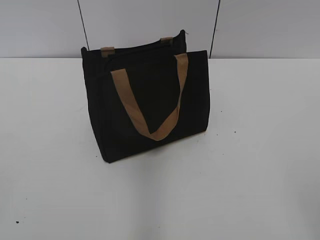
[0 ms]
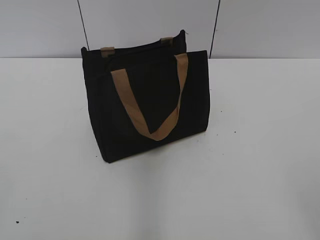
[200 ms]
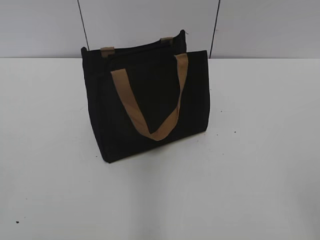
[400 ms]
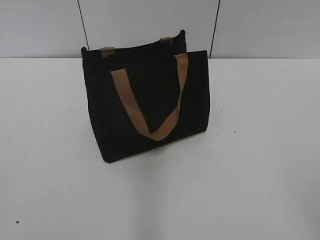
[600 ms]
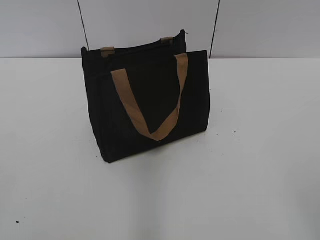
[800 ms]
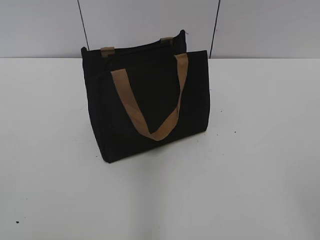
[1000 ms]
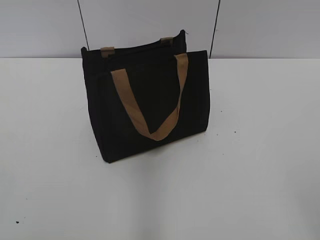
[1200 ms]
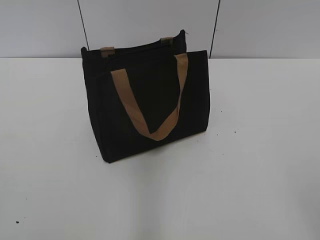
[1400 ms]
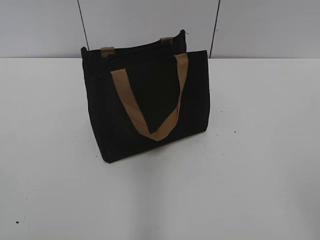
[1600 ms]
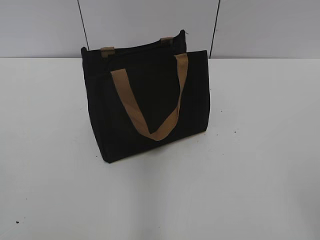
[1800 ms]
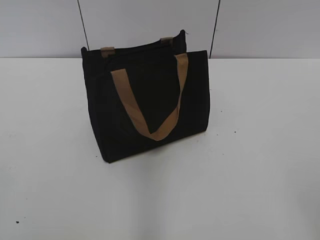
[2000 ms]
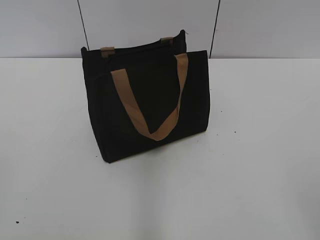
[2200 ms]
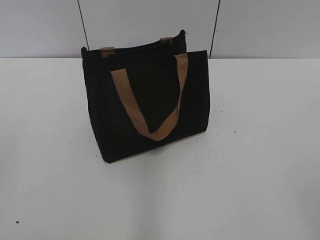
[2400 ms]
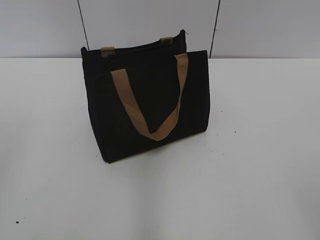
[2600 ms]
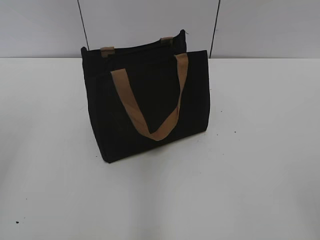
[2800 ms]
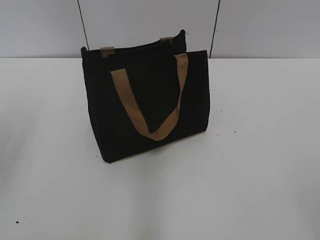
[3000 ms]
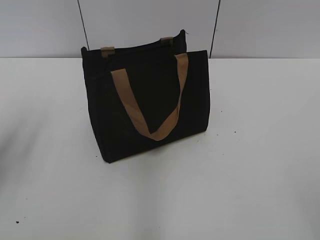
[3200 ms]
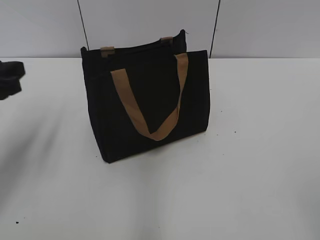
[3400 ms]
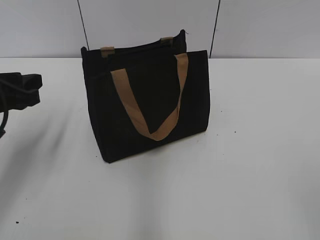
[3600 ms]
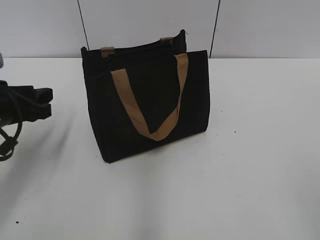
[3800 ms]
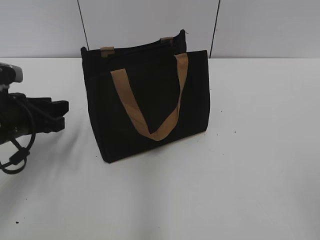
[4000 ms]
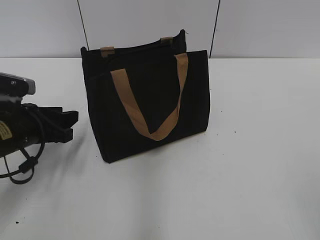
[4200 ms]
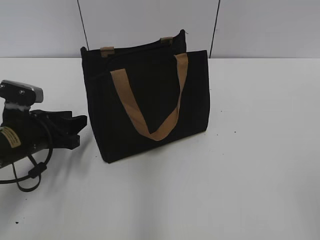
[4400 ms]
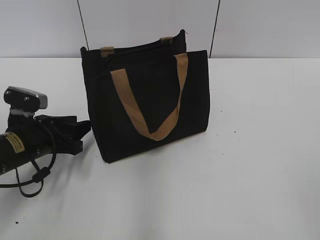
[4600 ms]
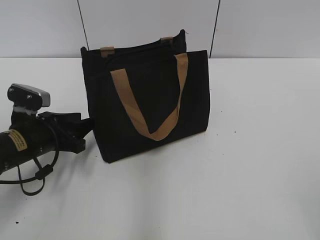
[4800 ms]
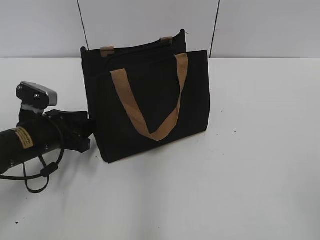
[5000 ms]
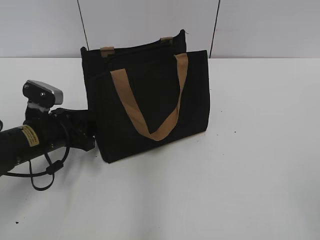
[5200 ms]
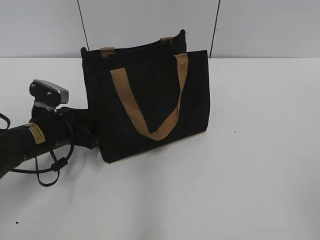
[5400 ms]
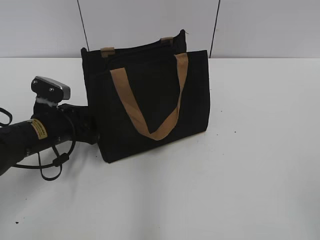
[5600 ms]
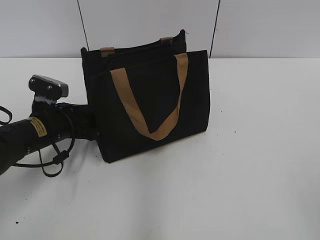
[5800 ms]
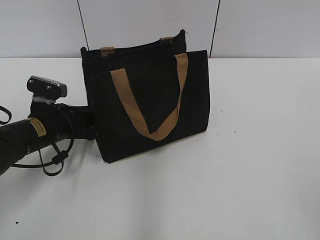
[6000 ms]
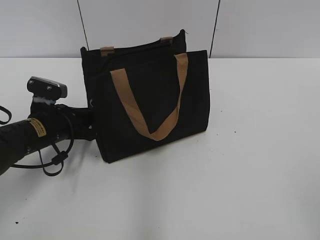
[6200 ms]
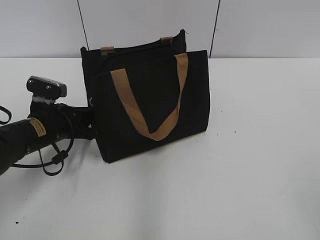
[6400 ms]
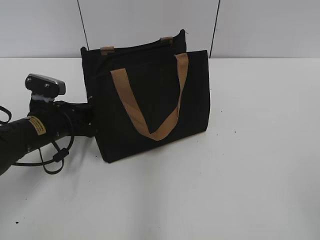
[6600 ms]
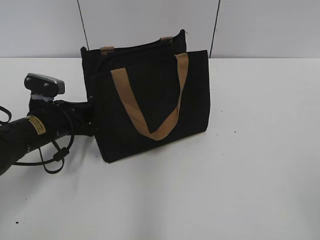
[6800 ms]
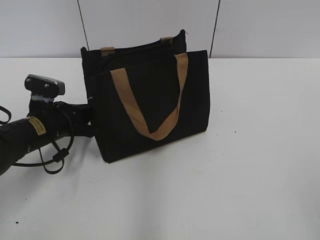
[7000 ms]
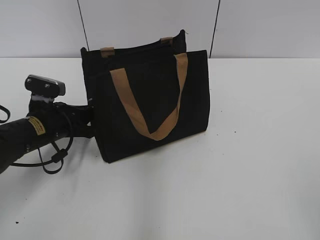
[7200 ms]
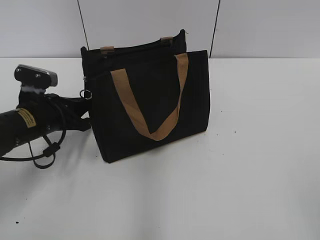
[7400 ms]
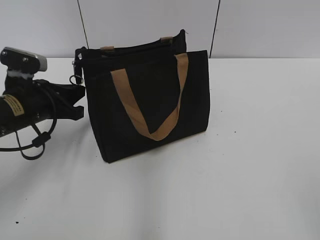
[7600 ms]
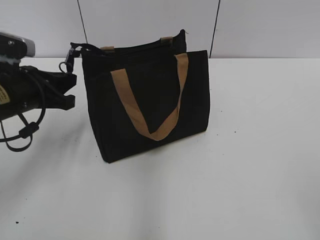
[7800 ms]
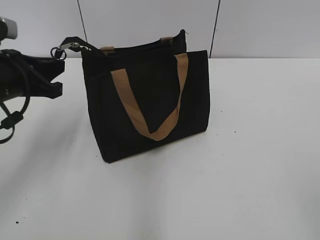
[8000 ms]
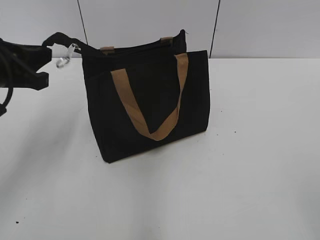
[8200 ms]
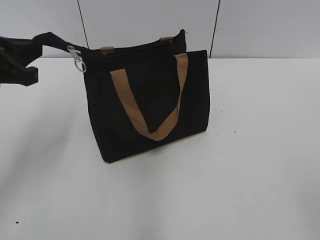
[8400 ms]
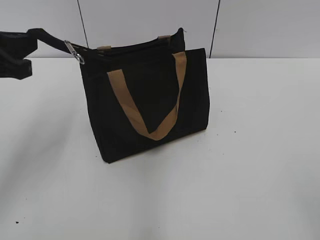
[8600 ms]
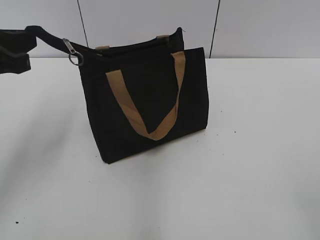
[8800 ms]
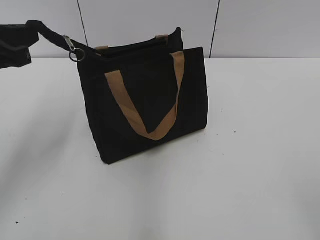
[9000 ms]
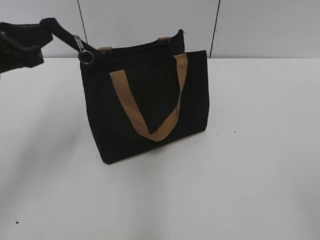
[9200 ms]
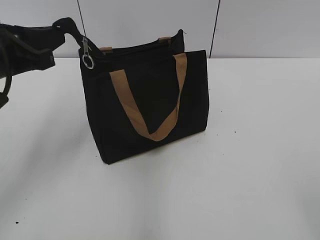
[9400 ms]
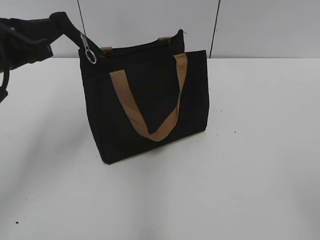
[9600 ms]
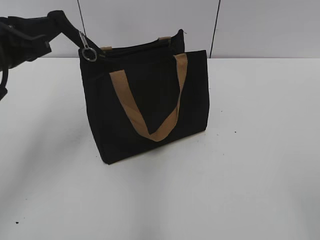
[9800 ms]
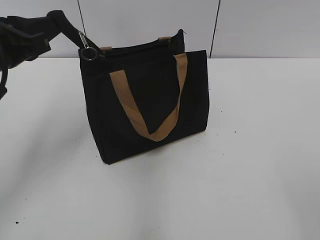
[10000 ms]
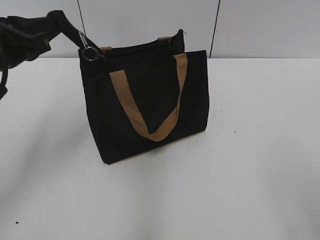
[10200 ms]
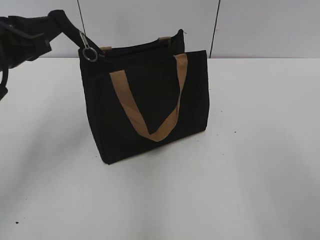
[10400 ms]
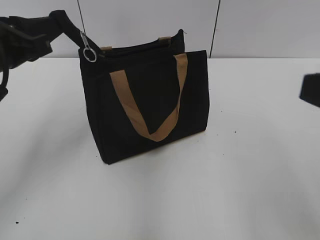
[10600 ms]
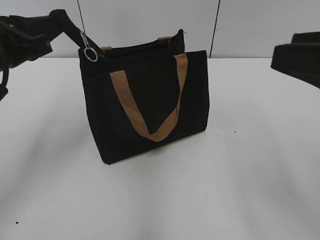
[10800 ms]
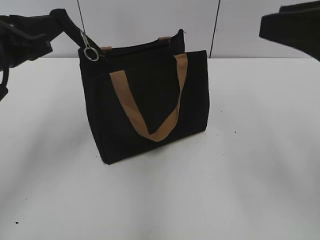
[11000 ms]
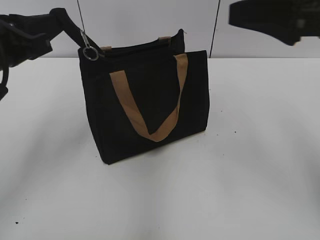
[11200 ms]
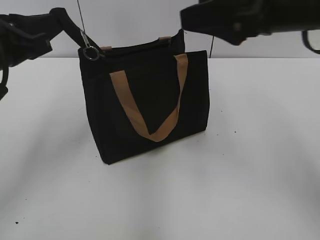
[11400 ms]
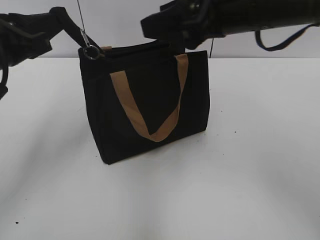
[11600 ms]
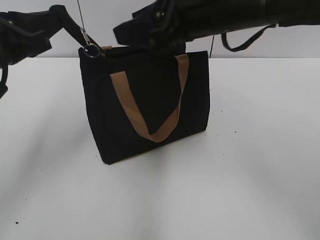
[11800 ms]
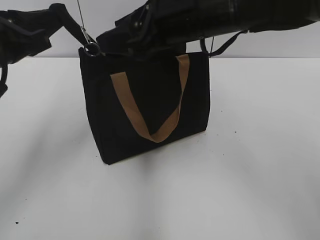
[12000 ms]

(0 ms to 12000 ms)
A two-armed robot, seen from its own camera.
3000 ms - 4400 ms: The left gripper goes approximately 25 cm downward and forward.
4400 ms - 6000 ms: The left gripper moves some 5 cm.
6000 ms - 7600 ms: The left gripper goes some 5 cm upward, and closes.
7600 ms - 9000 ms: The left gripper is displaced upward and backward by roughly 15 cm.
9000 ms - 10400 ms: The right gripper shifts about 5 cm forward.
10400 ms - 12000 ms: The right gripper shifts roughly 30 cm forward and to the left.

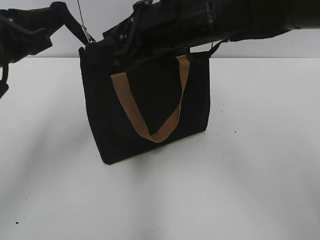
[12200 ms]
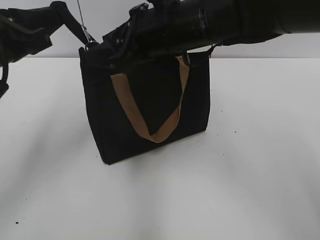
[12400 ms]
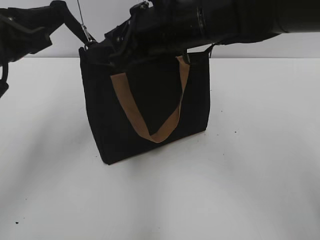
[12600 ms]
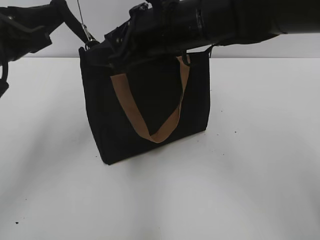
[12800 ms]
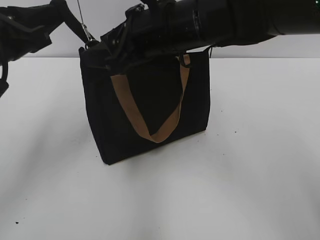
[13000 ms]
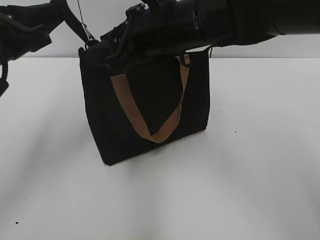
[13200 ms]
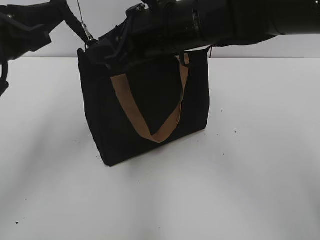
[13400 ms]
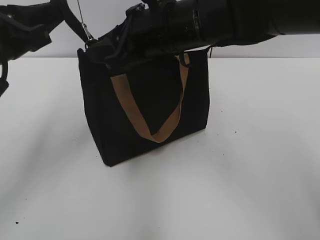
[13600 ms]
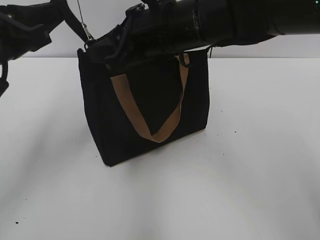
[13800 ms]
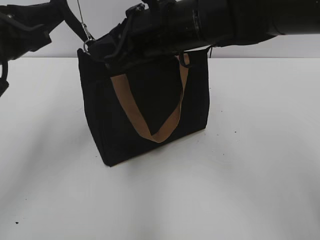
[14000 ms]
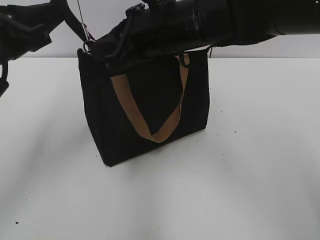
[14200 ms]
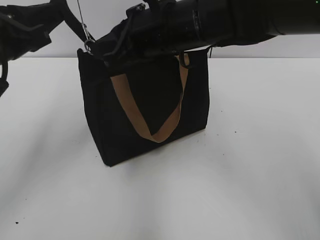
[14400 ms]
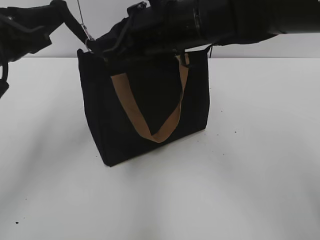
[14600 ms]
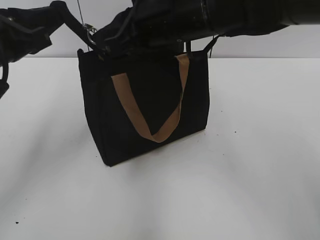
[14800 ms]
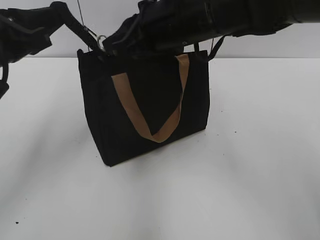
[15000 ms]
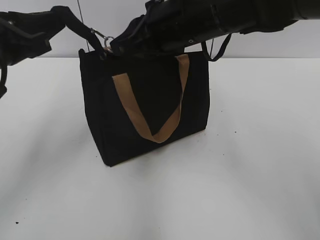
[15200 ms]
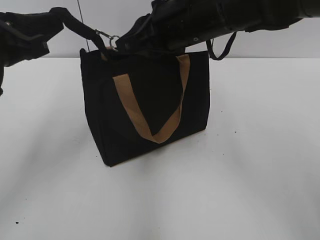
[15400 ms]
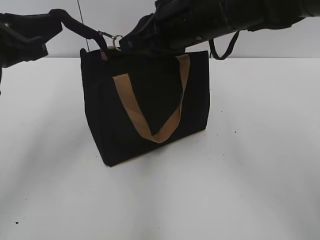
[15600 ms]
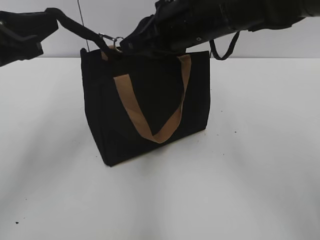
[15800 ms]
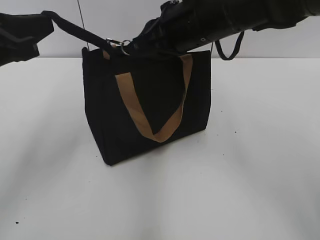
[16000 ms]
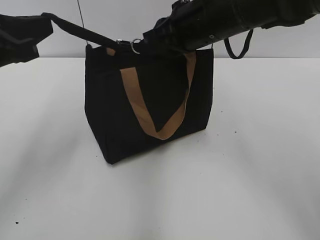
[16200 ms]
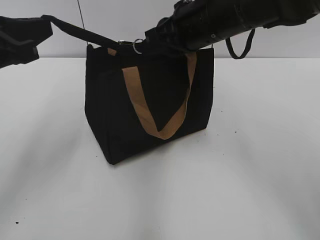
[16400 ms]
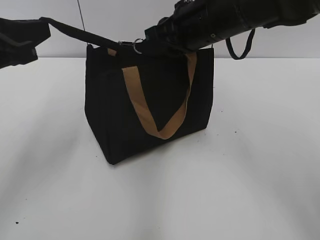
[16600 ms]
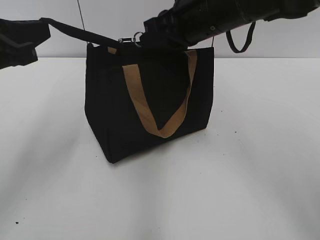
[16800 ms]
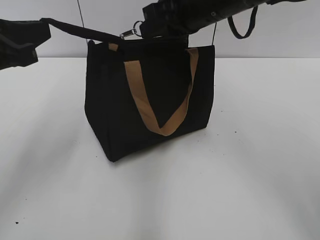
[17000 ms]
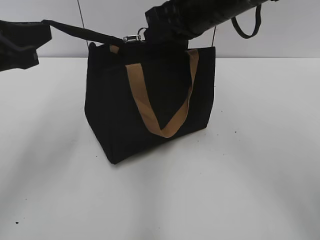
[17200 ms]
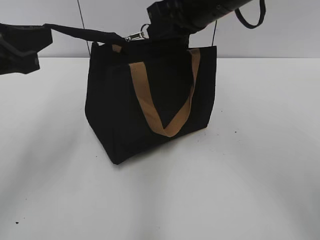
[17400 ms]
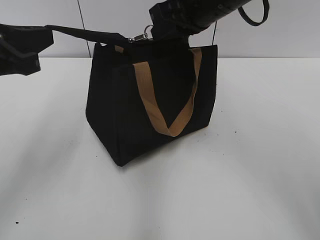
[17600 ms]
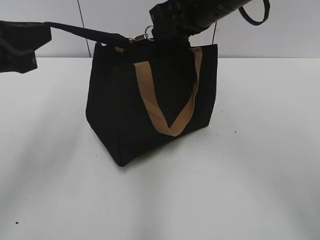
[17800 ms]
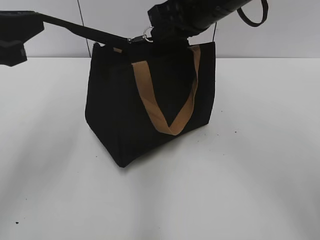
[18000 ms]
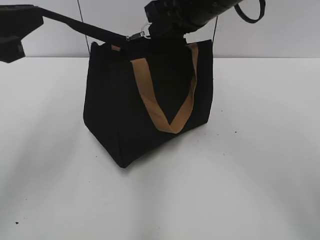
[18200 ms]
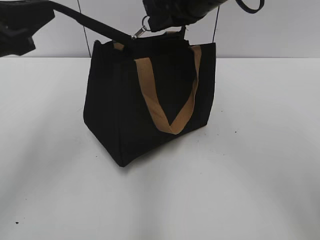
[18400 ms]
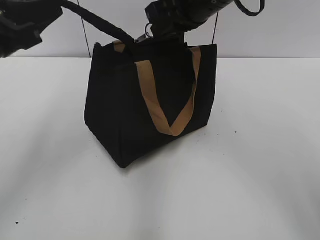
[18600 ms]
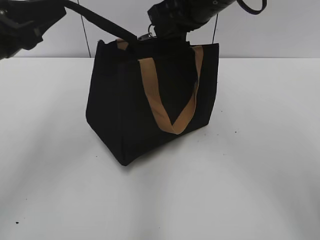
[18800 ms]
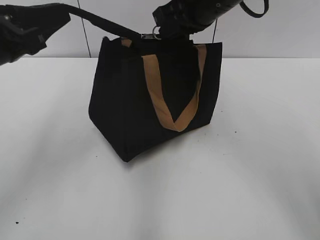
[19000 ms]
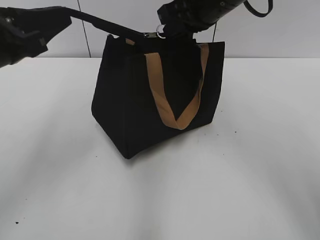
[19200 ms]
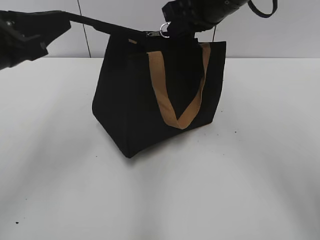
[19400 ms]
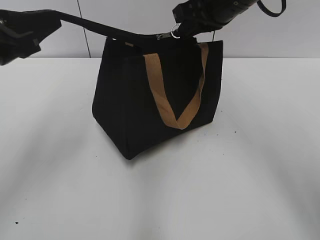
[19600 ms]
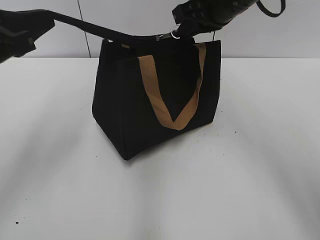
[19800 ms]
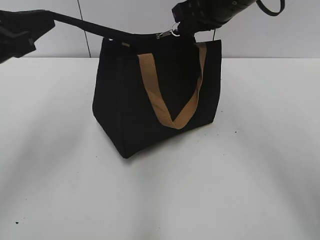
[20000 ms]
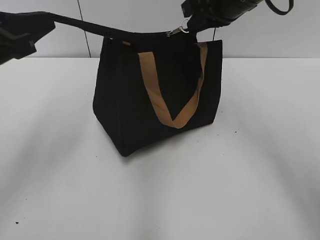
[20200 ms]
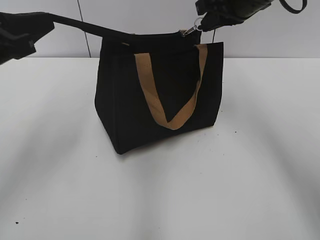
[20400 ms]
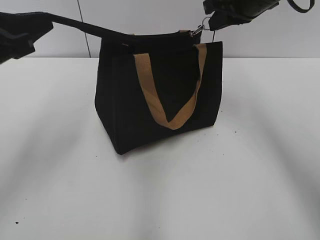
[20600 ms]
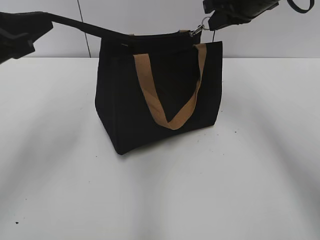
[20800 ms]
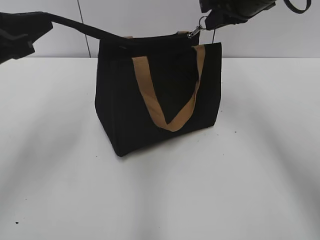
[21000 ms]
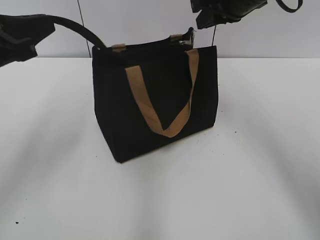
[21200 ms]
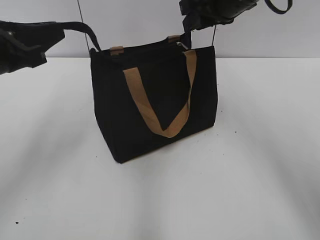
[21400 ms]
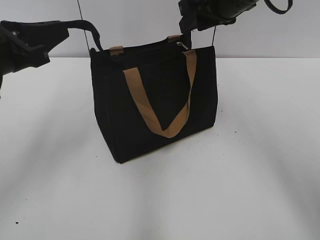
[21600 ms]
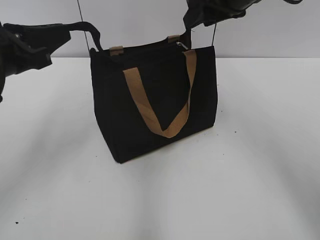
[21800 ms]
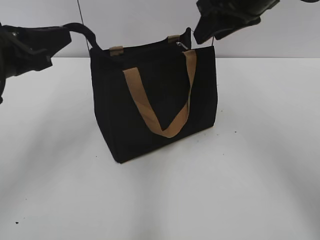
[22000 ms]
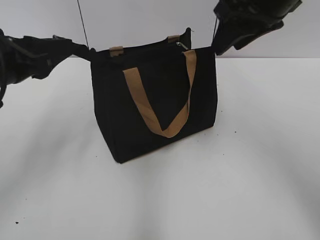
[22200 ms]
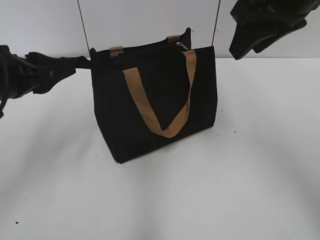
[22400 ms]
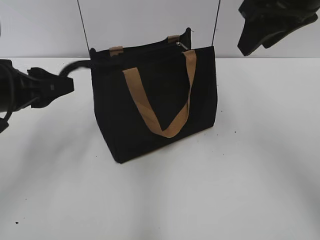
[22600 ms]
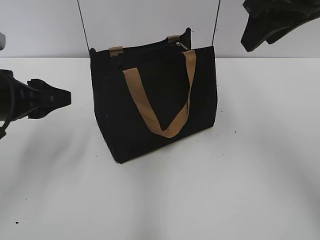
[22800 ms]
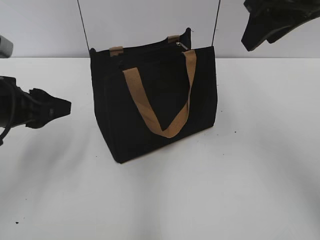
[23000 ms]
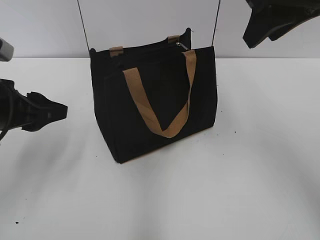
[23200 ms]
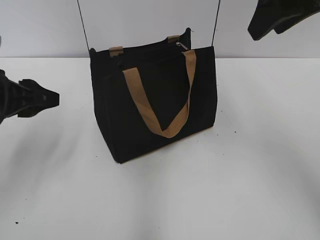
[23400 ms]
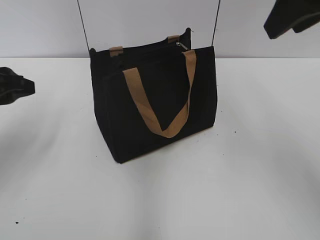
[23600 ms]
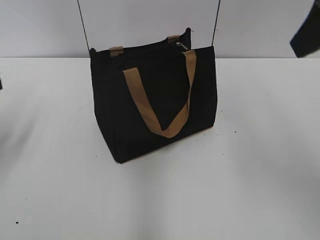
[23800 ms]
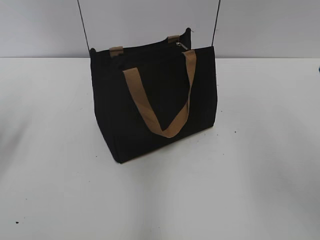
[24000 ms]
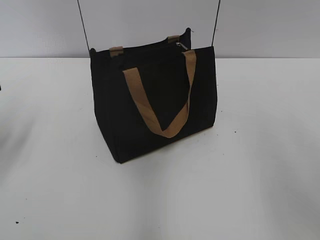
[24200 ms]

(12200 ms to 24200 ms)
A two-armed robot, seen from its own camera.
Step, 12200 ms - 21200 ms: Zip up the bag with your right hand.
Step, 21400 ms - 22600 ms: Grab the zipper with your left hand.
12200 ms - 13800 ms: The right gripper closes.
13800 ms - 15200 ms: The right gripper closes.
15200 ms - 18200 ms: The grippers move only a little.
18200 ms - 19800 ms: There are only small adjustments of the grippers.
19800 ms - 21200 ms: The grippers stay close to where they were, moving slightly.
21200 ms - 22600 ms: The right gripper heads backward and upward, covering roughly 10 cm, and opens its fingers; the left gripper goes some 5 cm downward, and opens up.
22600 ms - 24200 ms: The right gripper is displaced backward by approximately 15 cm, while the left gripper goes roughly 10 cm to the left.
